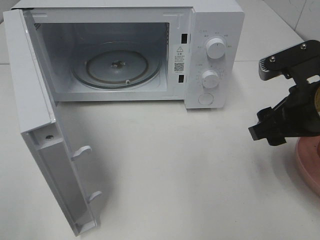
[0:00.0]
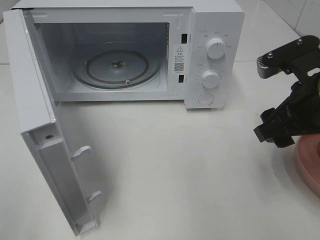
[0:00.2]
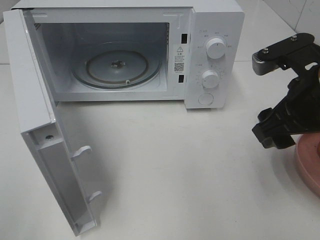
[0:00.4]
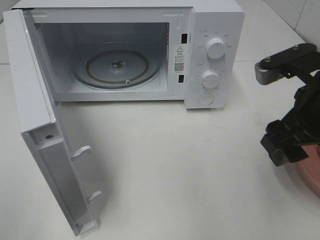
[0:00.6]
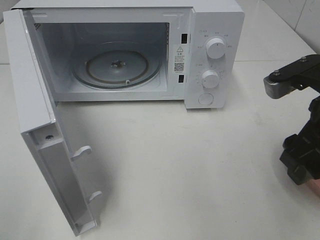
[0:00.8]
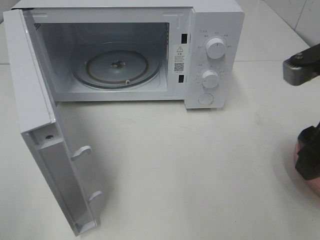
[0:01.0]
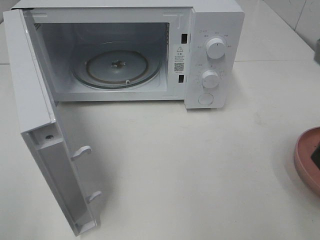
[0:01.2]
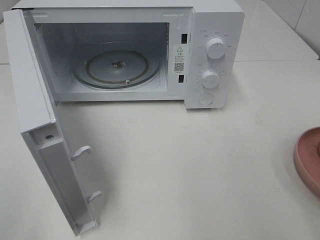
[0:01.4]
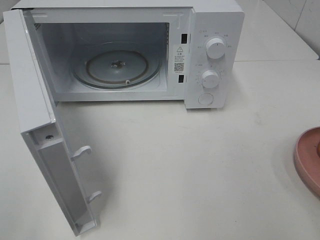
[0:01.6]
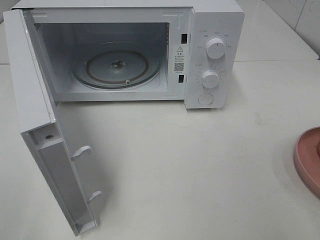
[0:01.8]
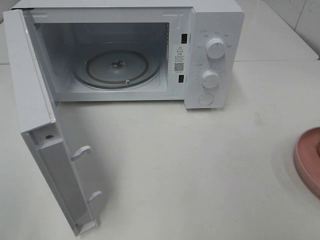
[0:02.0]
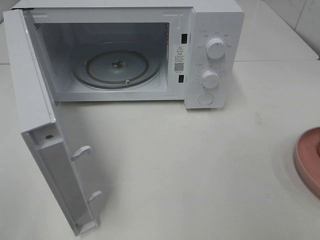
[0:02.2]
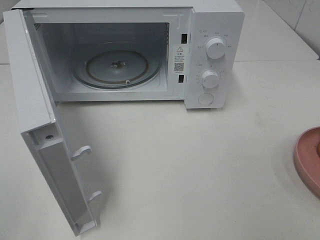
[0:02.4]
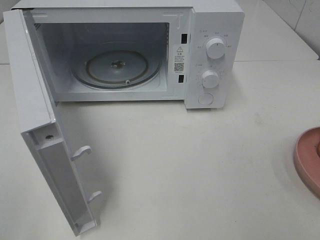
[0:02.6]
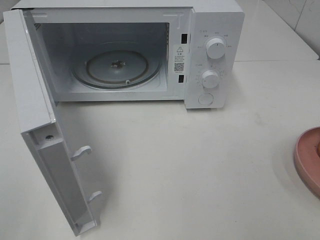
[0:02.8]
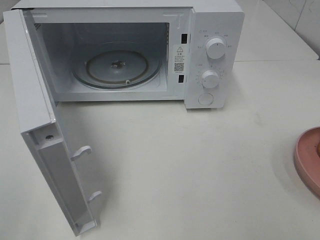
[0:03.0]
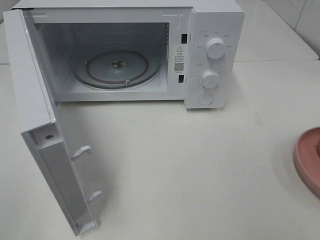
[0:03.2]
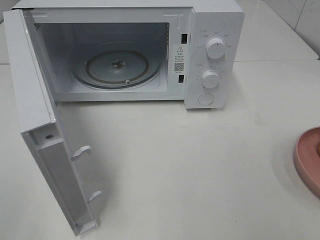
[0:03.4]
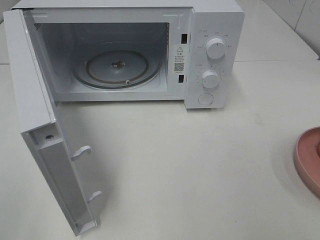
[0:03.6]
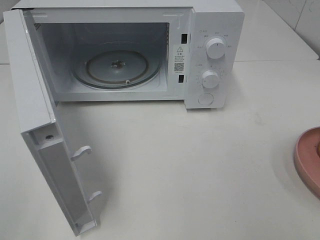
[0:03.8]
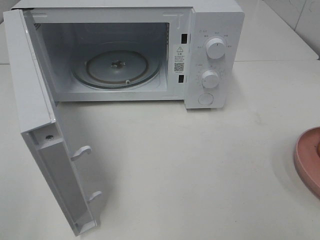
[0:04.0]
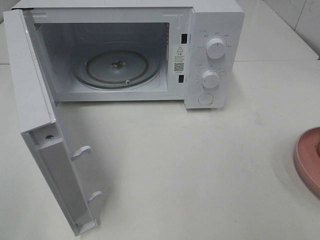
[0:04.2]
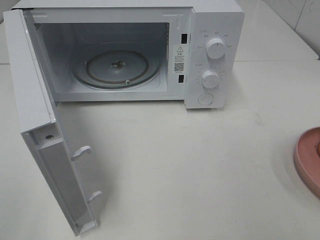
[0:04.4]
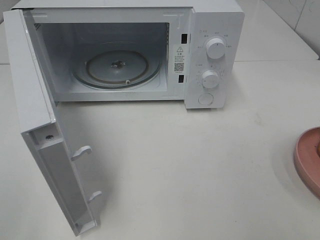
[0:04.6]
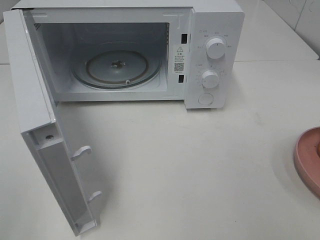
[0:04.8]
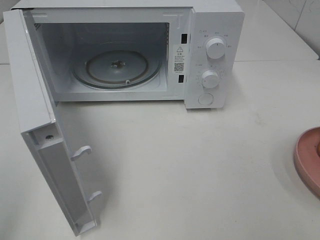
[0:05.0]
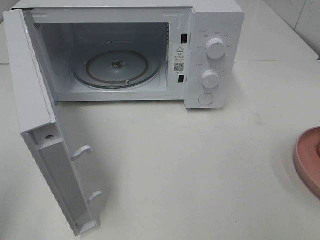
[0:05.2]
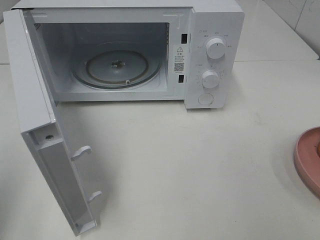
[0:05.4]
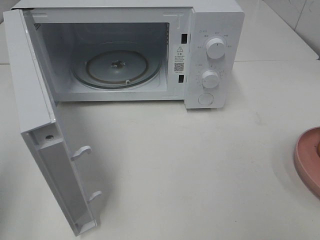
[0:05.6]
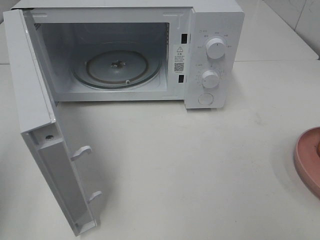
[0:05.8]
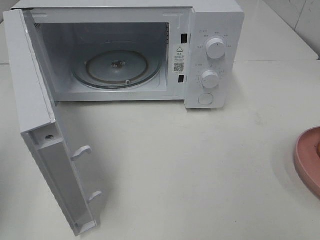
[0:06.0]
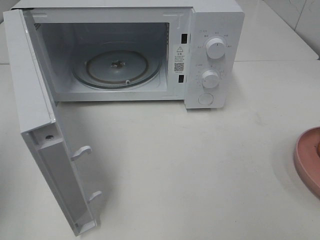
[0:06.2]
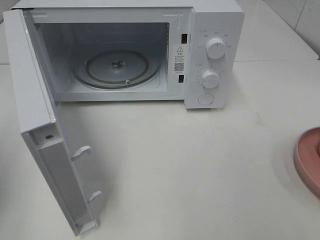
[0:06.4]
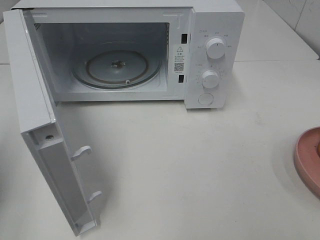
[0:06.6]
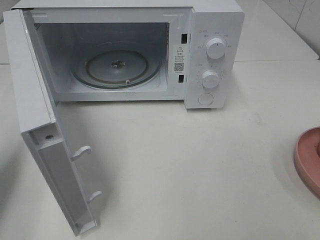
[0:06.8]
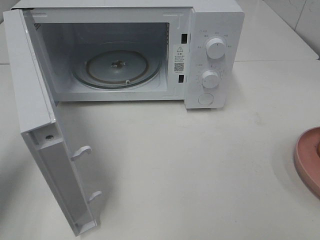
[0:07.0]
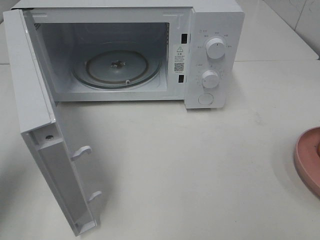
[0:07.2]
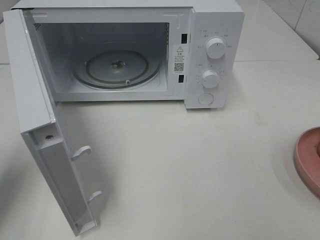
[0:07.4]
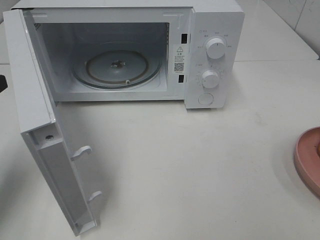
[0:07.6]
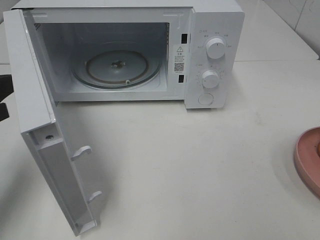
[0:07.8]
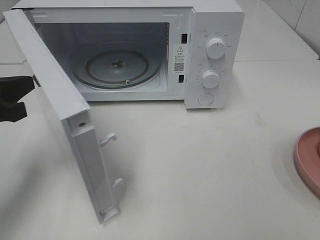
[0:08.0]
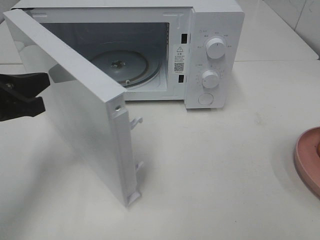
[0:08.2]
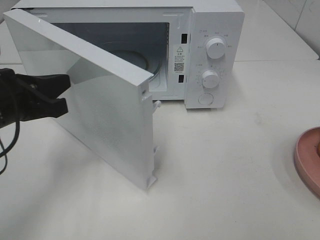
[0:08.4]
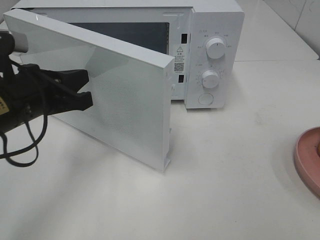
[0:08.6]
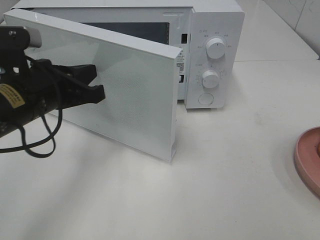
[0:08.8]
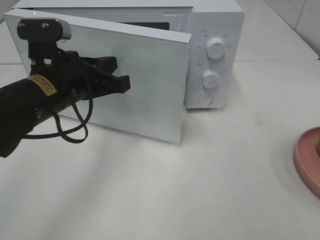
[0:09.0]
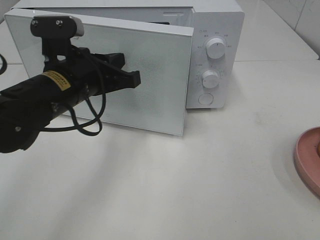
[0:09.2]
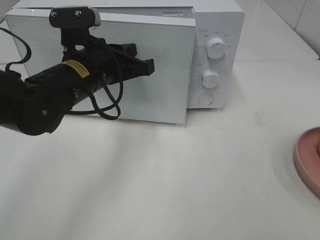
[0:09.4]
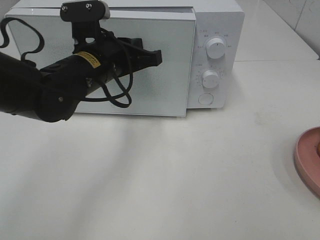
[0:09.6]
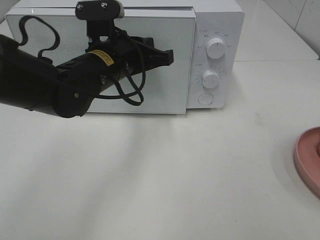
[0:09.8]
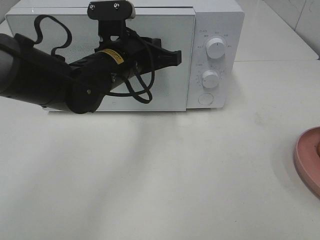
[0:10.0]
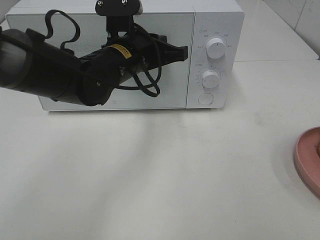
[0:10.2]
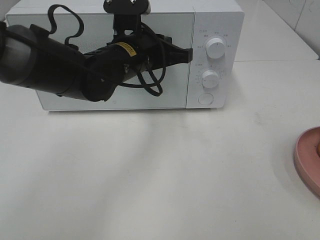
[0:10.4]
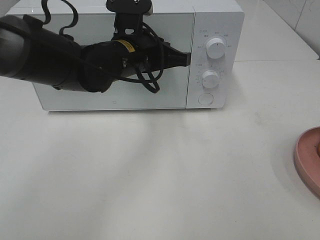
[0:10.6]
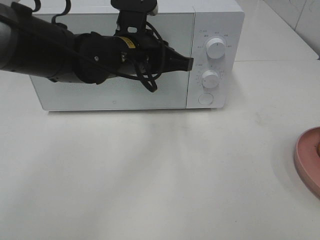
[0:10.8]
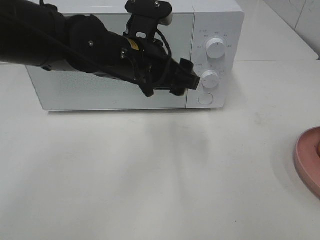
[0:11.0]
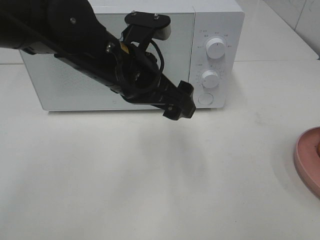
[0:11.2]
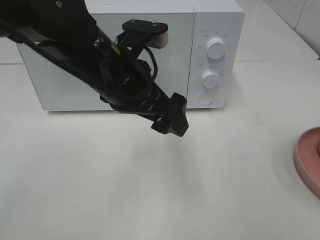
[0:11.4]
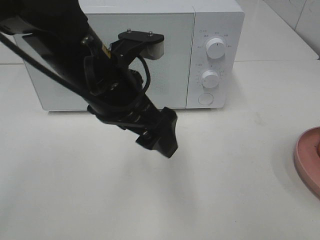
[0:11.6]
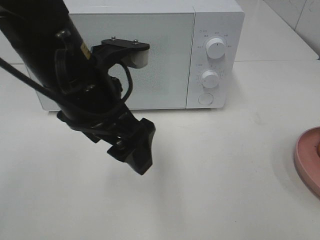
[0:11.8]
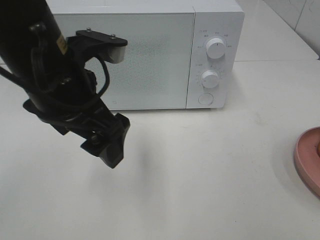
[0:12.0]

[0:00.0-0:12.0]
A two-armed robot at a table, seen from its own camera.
Task of the whole recording: Heat the burger.
Step, 0:00.0 to 0:10.6: Left hand: close the microwave door.
0:00.0 to 0:01.6: The right gripper goes some 15 cm backward and upward.
0:03.0 to 0:04.4: Both grippers stay about where they are.
0:06.0 to 0:07.6: The left gripper heads forward and downward, covering approximately 10 cm.
0:07.6 to 0:09.0: The left gripper goes about 15 cm to the right.
0:09.0 to 0:10.4: The left gripper moves to the right and forward, about 10 cm.
0:10.4 to 0:12.0: The left gripper moves backward, upward and to the left, roughly 15 cm, and opens.

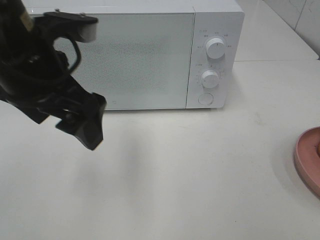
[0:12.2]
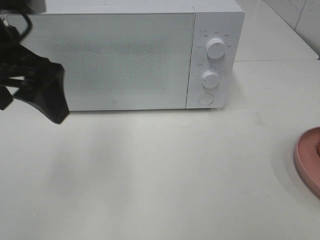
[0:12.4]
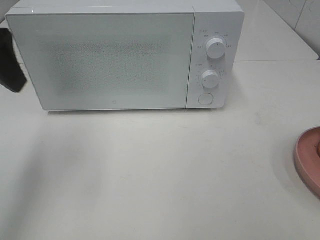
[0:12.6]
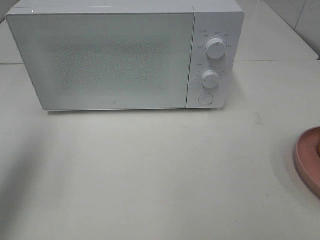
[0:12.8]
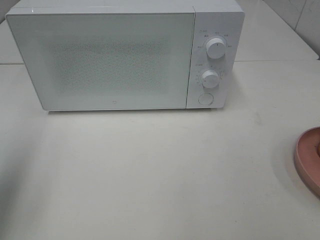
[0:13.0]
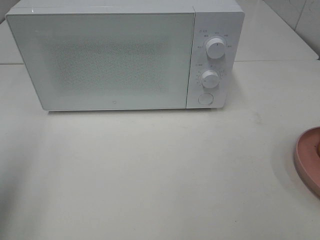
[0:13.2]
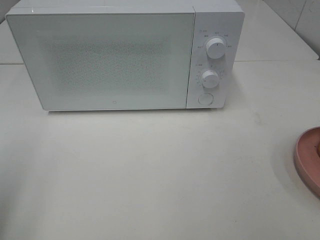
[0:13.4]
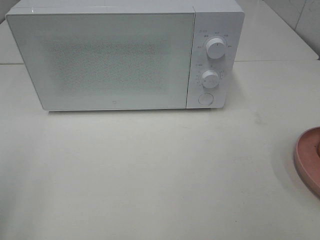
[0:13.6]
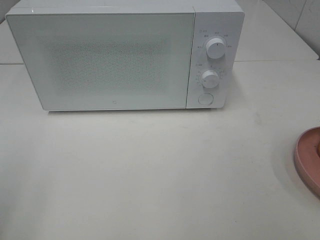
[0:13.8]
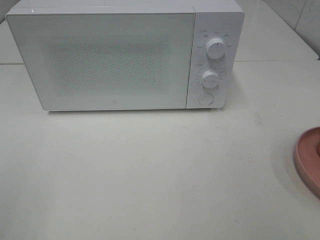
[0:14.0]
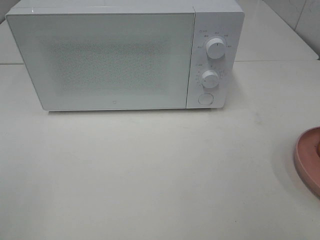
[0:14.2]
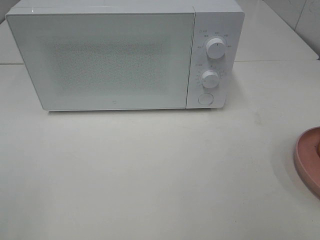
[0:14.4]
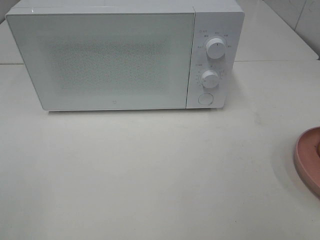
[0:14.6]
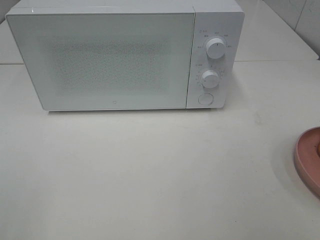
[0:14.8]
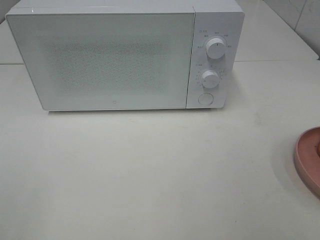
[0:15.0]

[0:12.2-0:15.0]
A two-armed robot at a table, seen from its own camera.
Task of the whole recording: Heat the burger.
0:12.2 to 0:13.6: The left gripper moves to the left and backward, roughly 25 cm.

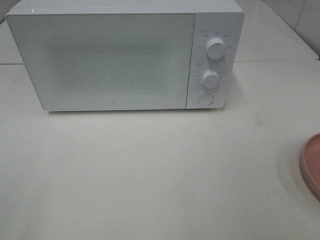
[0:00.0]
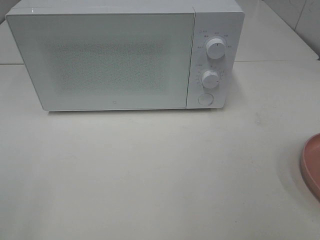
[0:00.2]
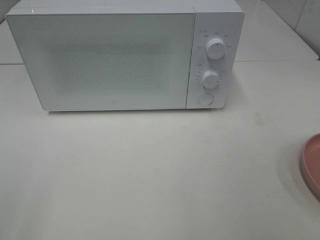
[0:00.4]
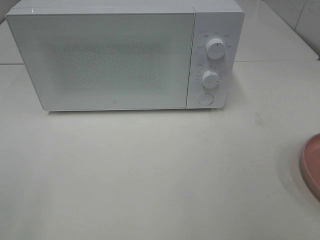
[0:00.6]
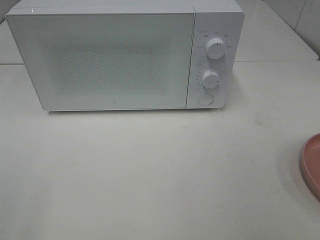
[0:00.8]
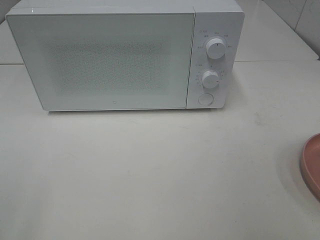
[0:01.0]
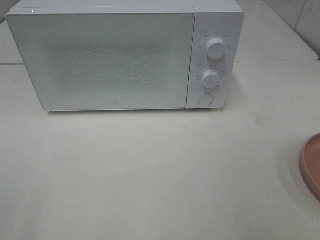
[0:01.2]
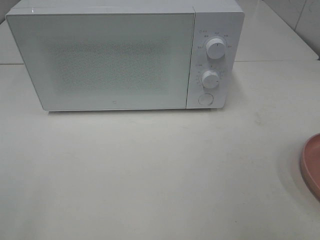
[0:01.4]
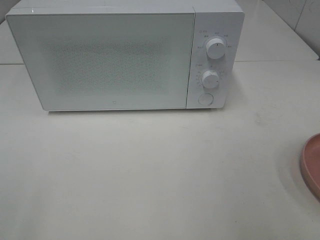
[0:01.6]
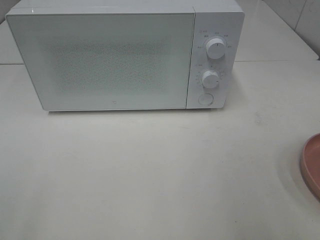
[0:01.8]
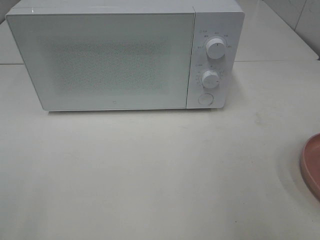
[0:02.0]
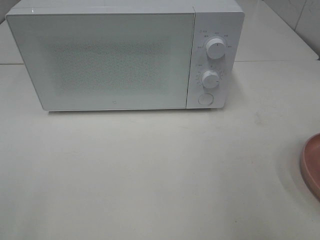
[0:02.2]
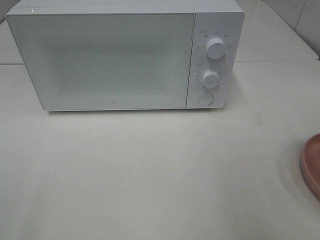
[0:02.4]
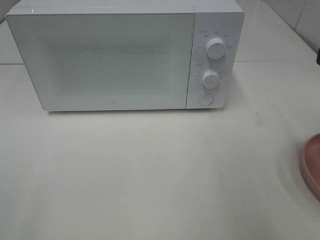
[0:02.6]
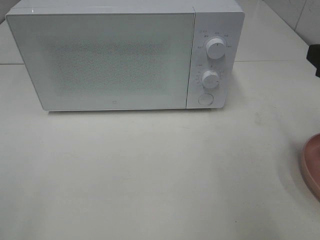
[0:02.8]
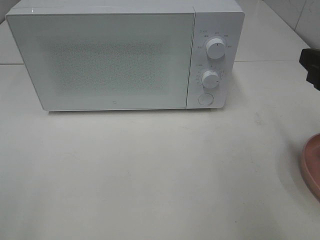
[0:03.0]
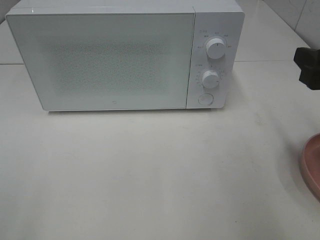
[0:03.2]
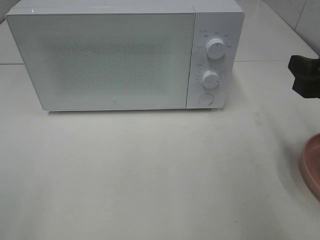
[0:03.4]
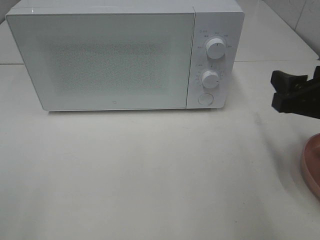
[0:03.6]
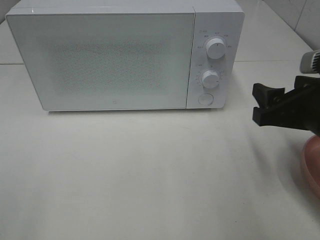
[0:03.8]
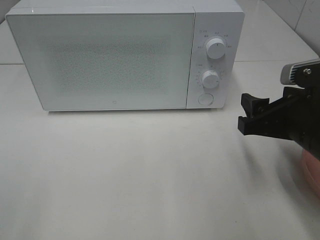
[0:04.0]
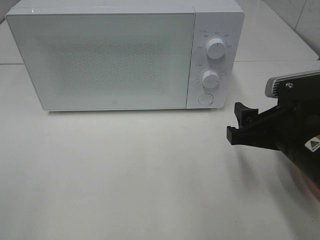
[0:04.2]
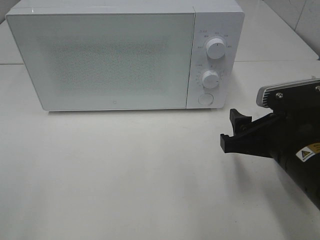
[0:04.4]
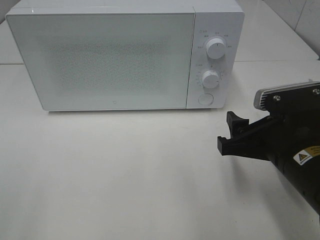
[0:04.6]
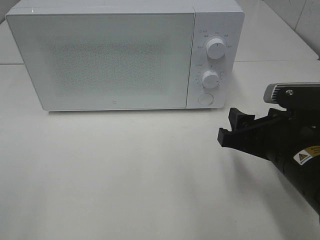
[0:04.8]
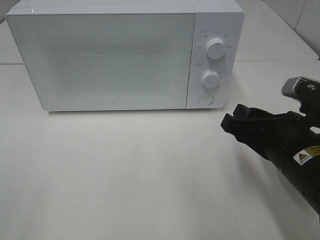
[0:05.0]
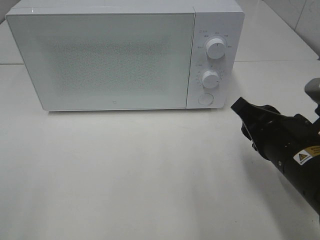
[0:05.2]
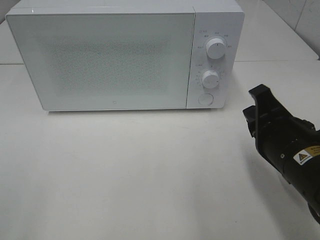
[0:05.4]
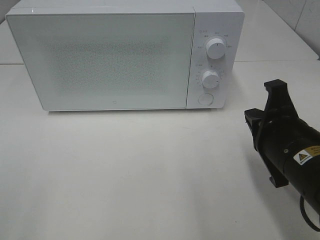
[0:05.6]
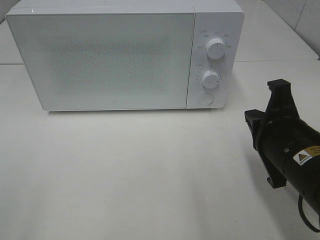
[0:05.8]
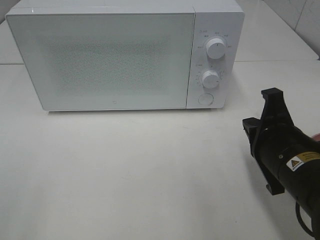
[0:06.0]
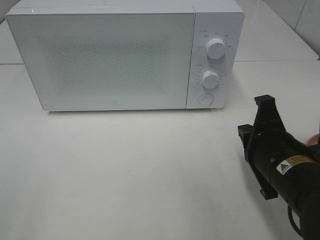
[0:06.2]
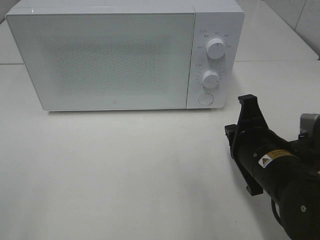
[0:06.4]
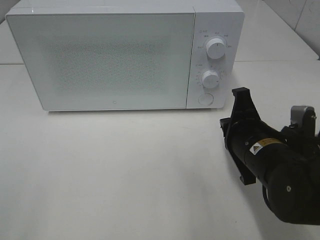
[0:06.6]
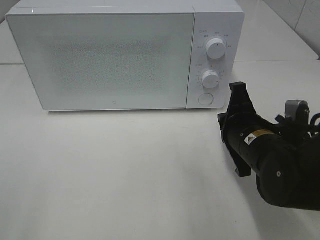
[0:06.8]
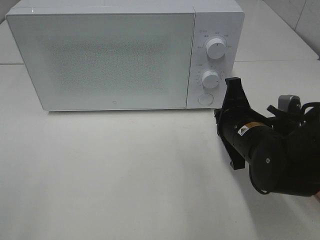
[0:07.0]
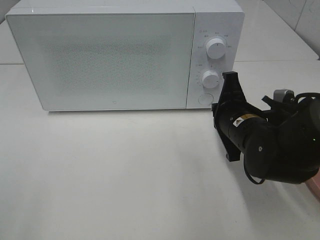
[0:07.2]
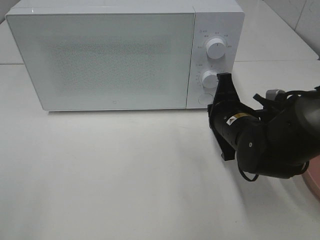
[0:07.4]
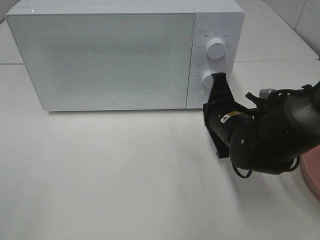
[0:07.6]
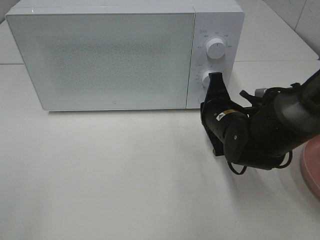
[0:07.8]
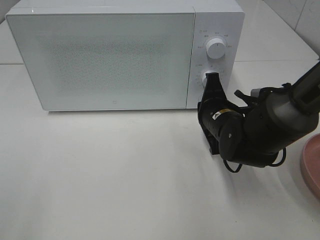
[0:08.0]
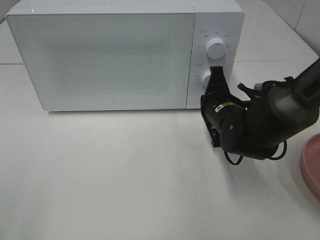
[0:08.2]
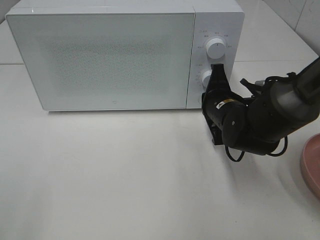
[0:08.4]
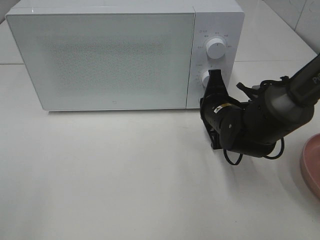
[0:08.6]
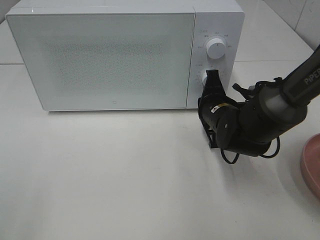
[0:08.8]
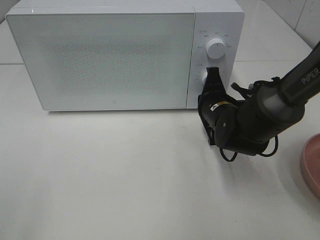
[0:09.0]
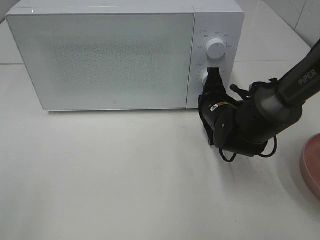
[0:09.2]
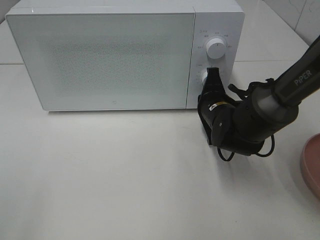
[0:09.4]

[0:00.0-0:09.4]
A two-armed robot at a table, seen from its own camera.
Task of the whole recording: Heat the burger.
0:01.6 to 0:03.2: The right gripper goes approximately 15 cm forward and downward.
0:03.2 to 0:04.8: The right gripper shifts roughly 10 cm to the left and downward.
0:04.8 to 0:06.2: The right gripper closes its fingers.
0:06.2 to 0:07.8: The right gripper shifts roughly 10 cm forward.
0:07.8 to 0:09.4: The grippers stay close to where they were, moving slightly.